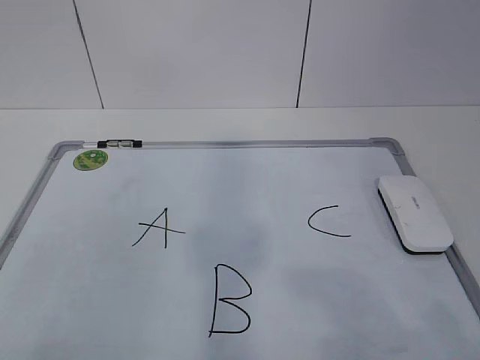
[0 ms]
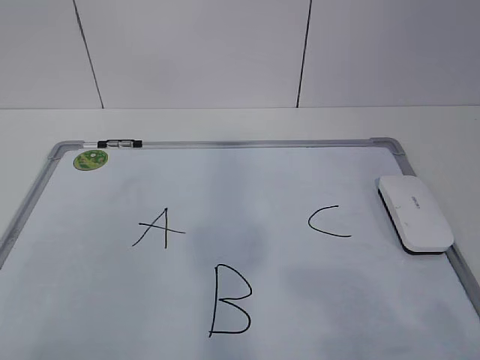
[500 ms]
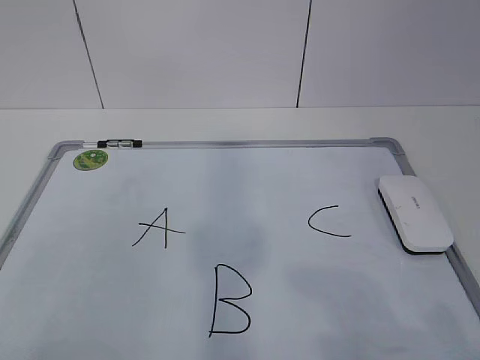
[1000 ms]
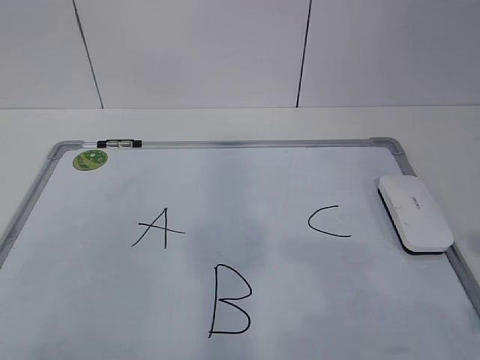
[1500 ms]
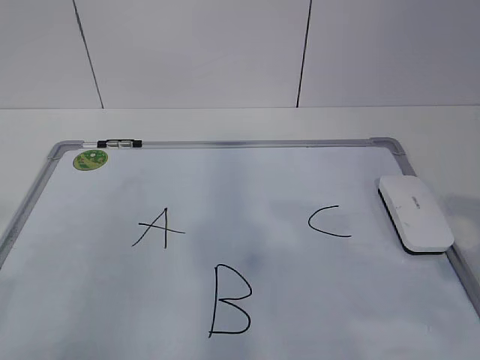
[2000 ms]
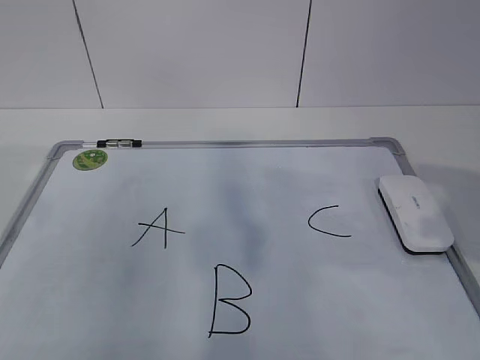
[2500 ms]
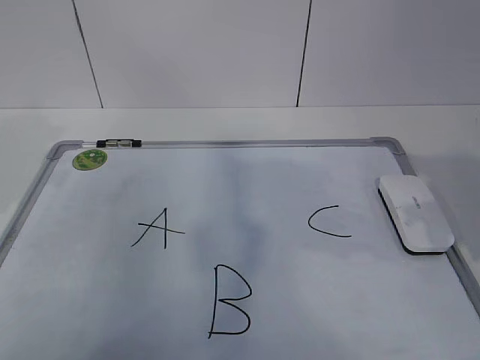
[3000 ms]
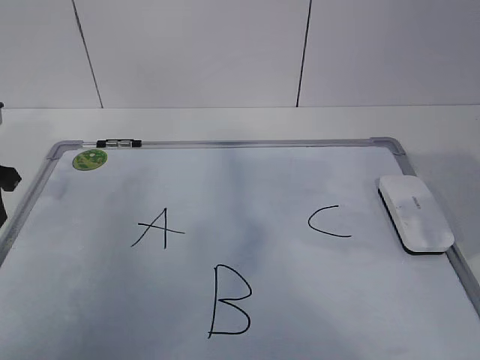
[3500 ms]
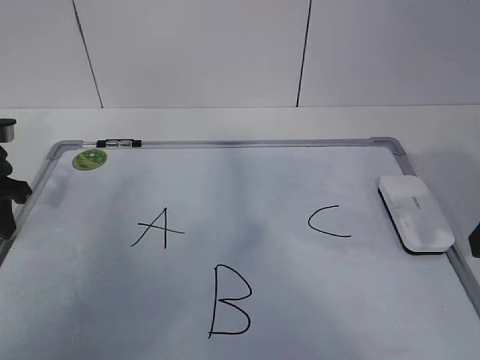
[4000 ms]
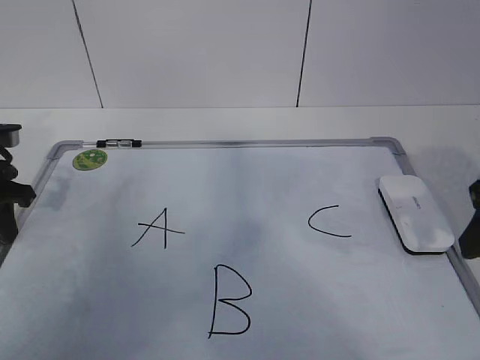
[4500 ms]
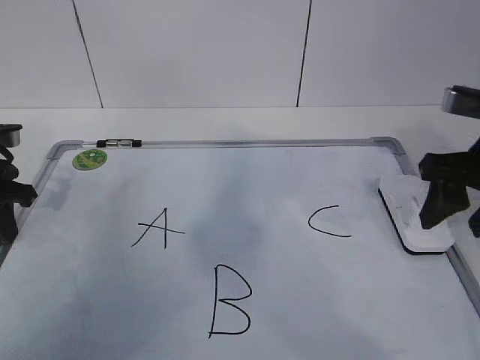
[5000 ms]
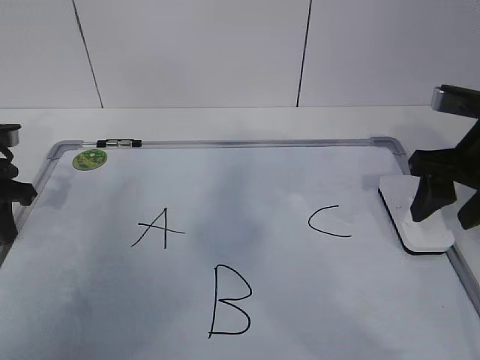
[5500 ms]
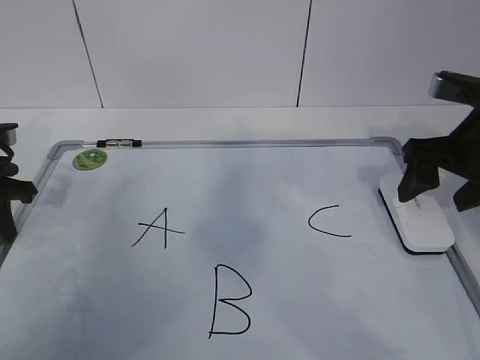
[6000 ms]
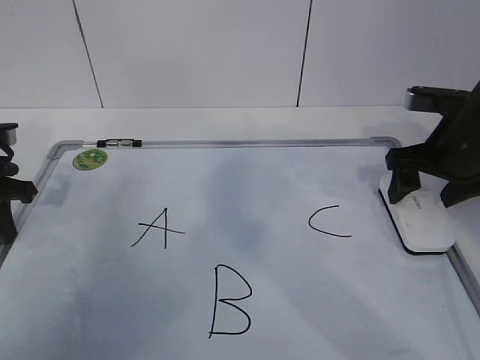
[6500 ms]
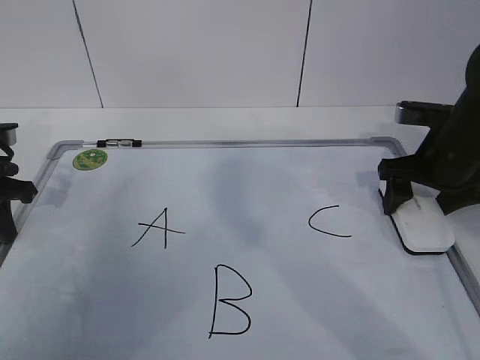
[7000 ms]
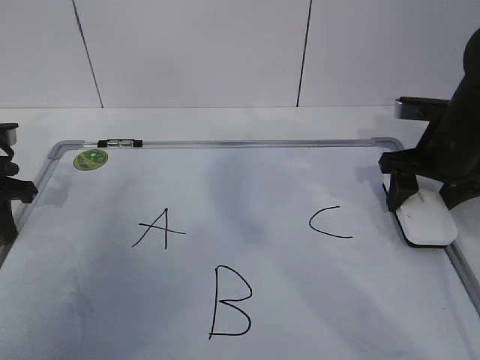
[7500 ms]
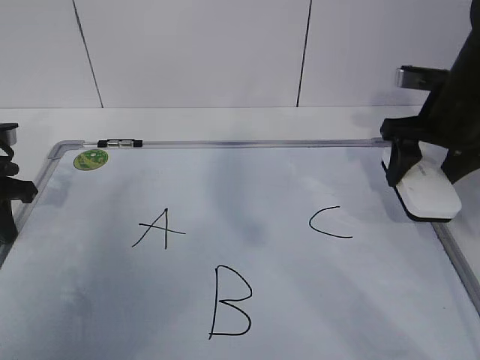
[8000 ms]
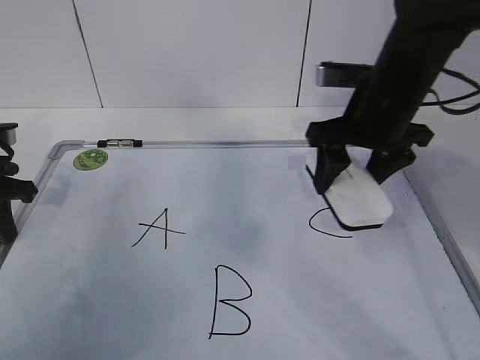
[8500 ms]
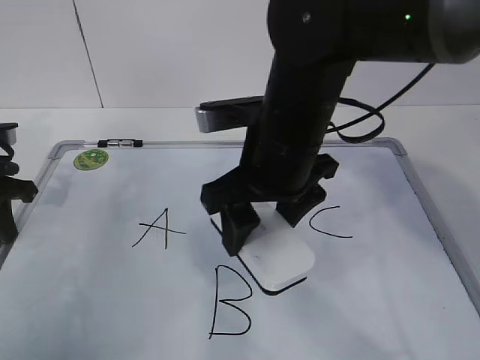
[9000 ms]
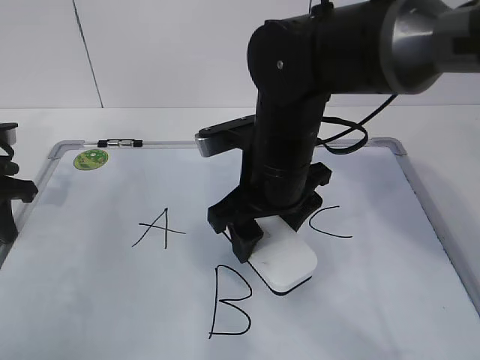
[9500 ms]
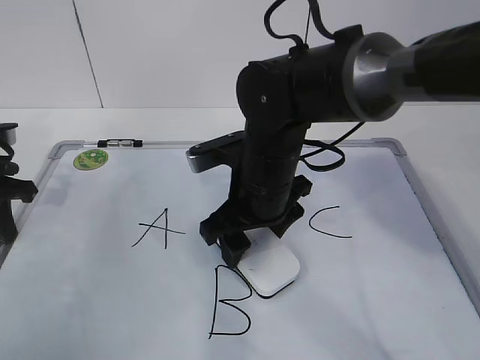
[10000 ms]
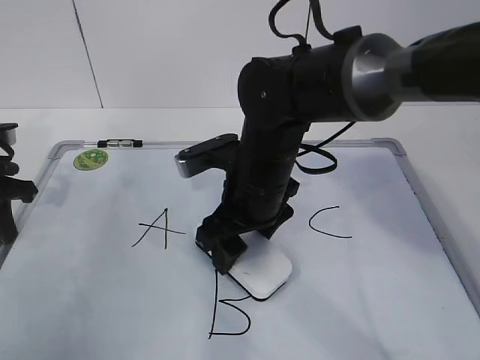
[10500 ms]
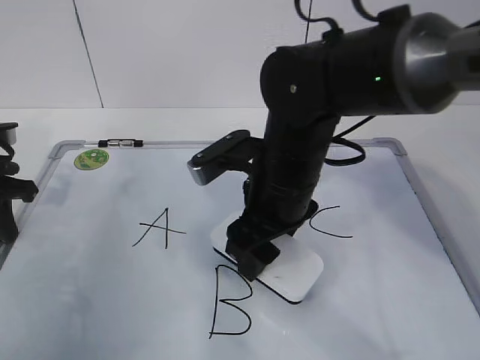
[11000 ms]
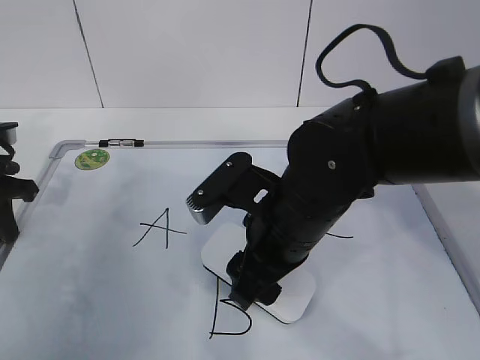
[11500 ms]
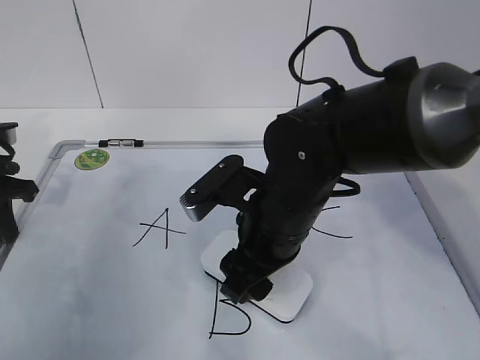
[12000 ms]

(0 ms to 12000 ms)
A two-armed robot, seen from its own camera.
Task of the whole recording: pick up the eraser on the blackboard and erase the letter "B".
Step, 0 ms - 3000 ms: Hold the drawing board steady with your left hand.
Step, 4000 ms - 6000 ms: Grab the eraser with your right hand.
2000 ms - 4000 ms: The right gripper moves forward, about 15 cm; the left gripper goes approximately 30 cm forward and downward.
4000 ms - 6000 ms: The left gripper closes up; the right gripper travels forward by about 10 cm, and opens up.
6000 ms - 8000 ms: The right gripper moves forward, approximately 5 cm, and closes its fingers.
8000 ms - 10000 ms: The right gripper moves to the left, some 20 cm.
10000 ms - 12000 ms: The right gripper heads backward, covering about 5 cm.

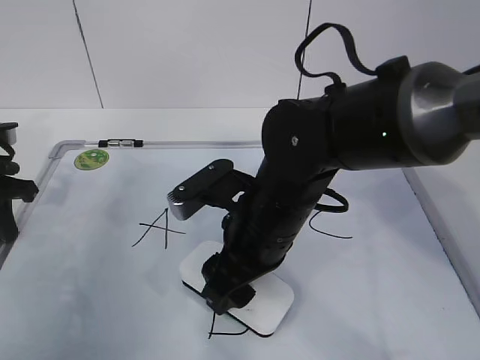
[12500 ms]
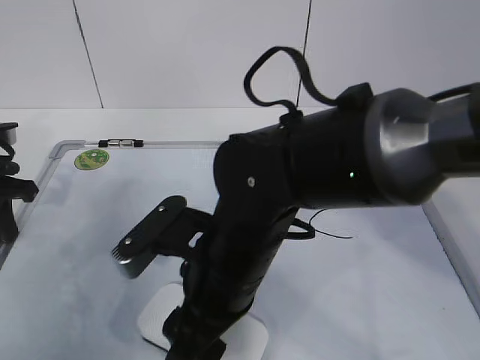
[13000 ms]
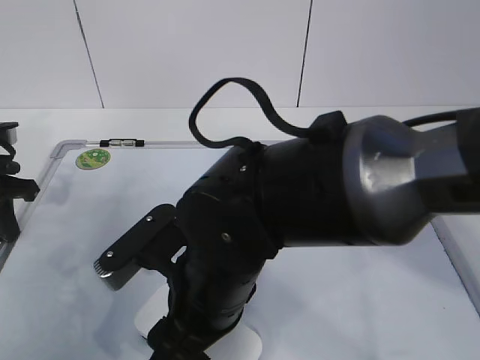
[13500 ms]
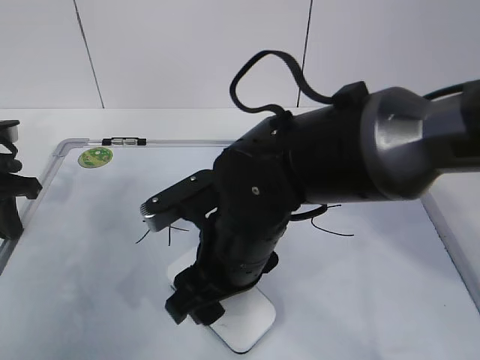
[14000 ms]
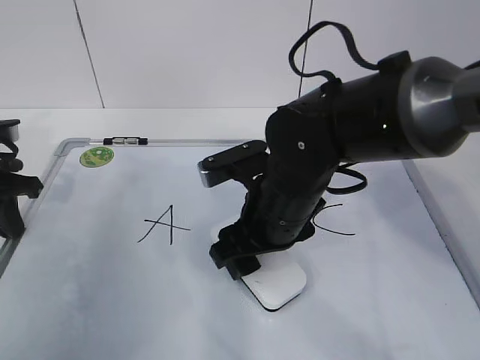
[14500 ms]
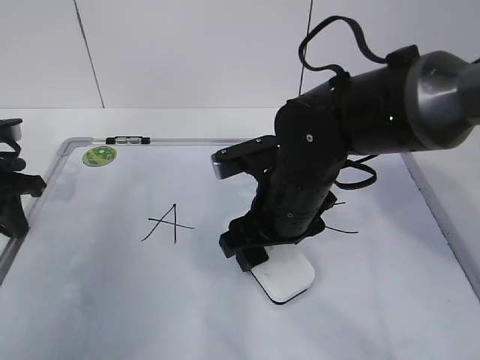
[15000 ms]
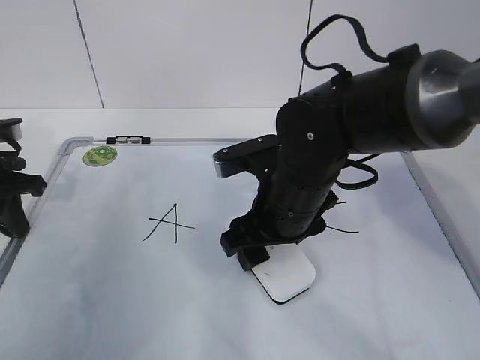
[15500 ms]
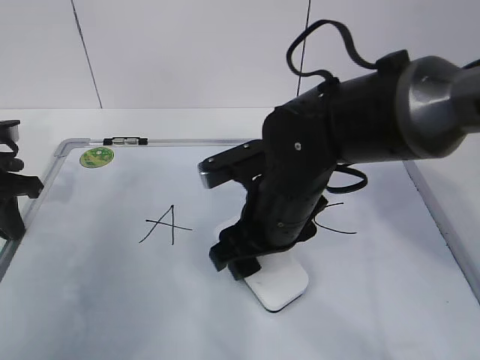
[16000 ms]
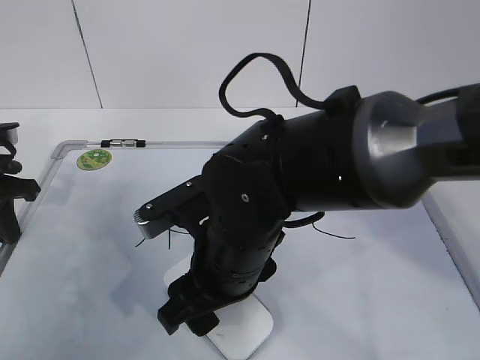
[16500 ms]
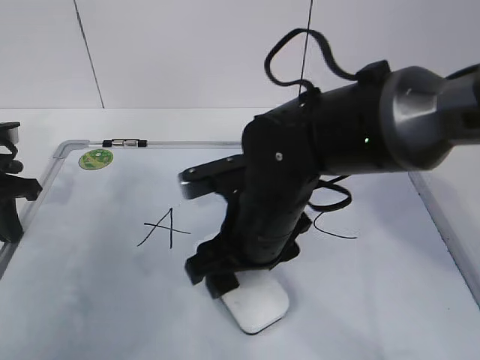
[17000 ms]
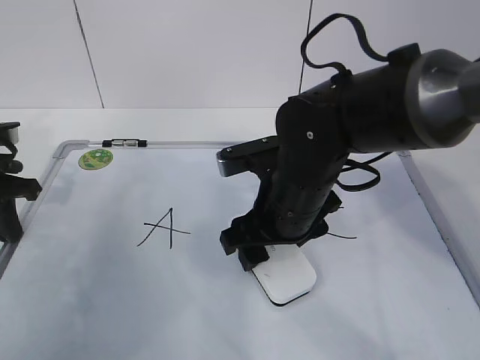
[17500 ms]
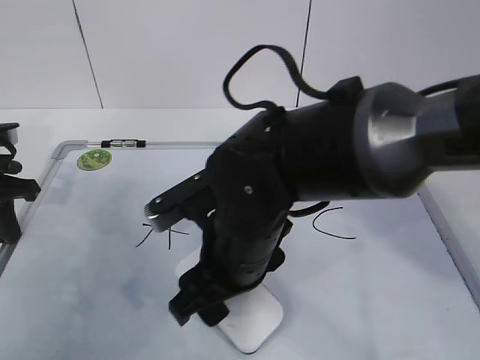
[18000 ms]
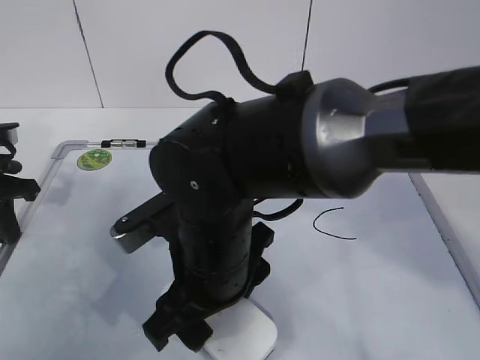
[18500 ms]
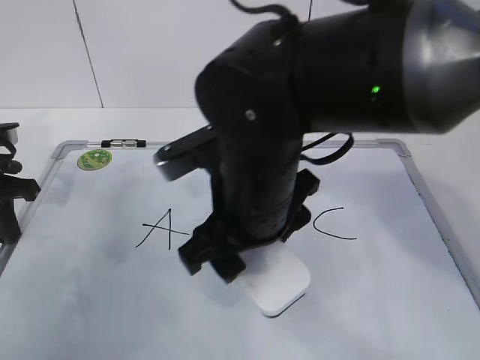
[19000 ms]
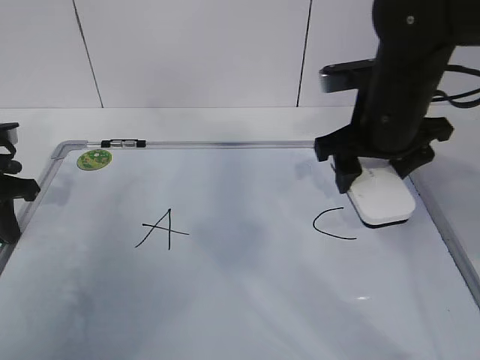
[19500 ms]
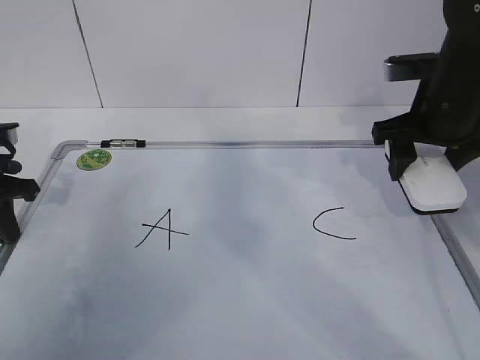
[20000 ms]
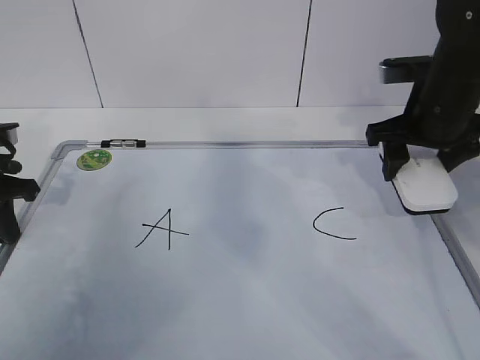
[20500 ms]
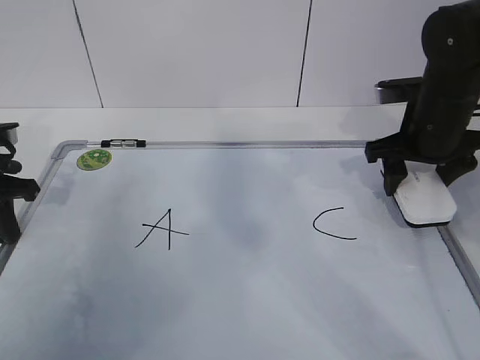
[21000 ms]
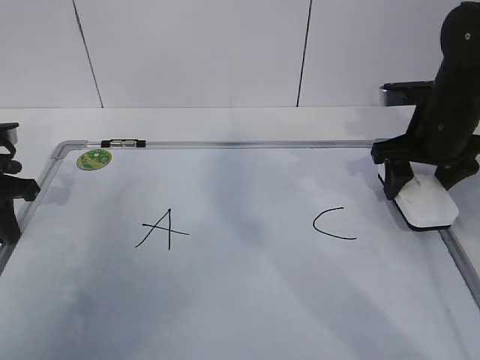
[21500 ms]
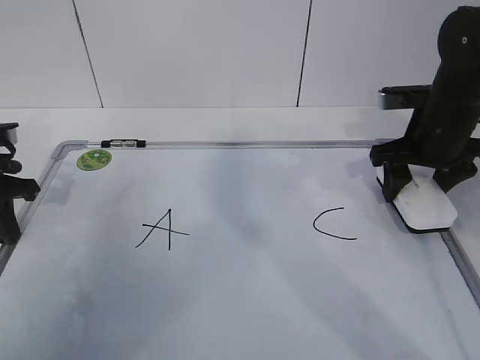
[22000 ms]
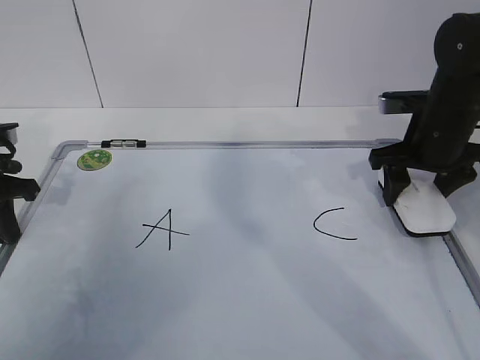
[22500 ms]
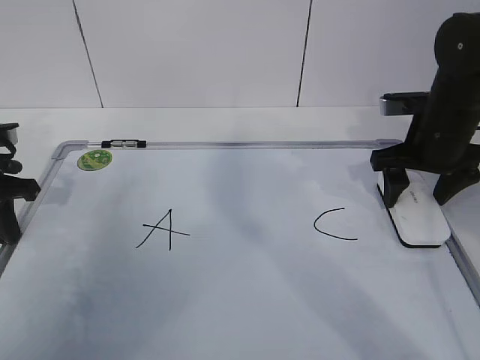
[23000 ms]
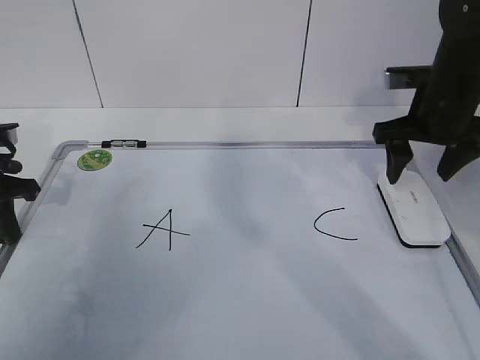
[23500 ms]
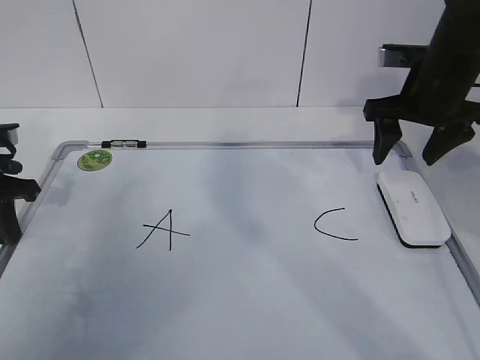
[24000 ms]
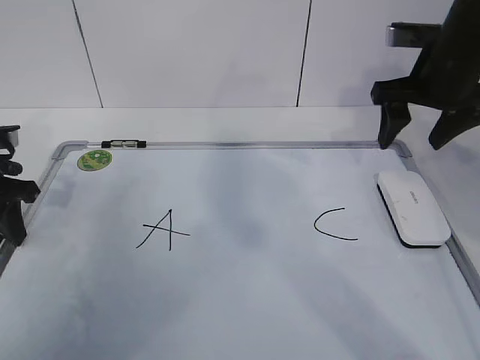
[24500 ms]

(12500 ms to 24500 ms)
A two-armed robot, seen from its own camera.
Task of the whole recording: pick up the eraser on the blackboard and erase the letter "B".
Step, 12500 ms - 15000 ms: Erase the letter B with your right hand.
Step, 15500 ms - 18500 ms: Put down the eraser with your right hand.
12500 ms - 14500 ms: The right gripper goes backward and returns, about 5 cm each way.
14500 ms - 16500 ms: The right gripper goes about 10 cm backward and to the left.
16500 ms - 18500 ms: The right gripper reaches approximately 5 cm to the right, then returns.
18500 ms - 20500 ms: The right gripper shifts approximately 30 cm to the right and forward.
20500 ms - 22500 ms: The right gripper moves approximately 5 cm.
22500 ms - 24500 ms: The left gripper opens. Meanwhile the right gripper shifts about 10 cm upward, and opens its fingers.

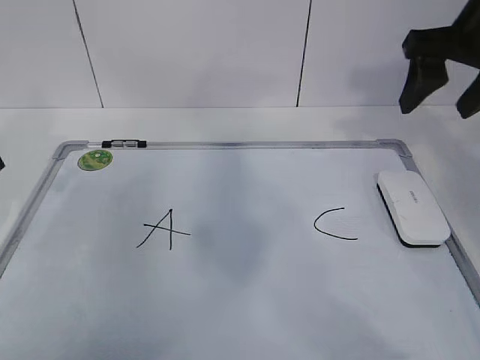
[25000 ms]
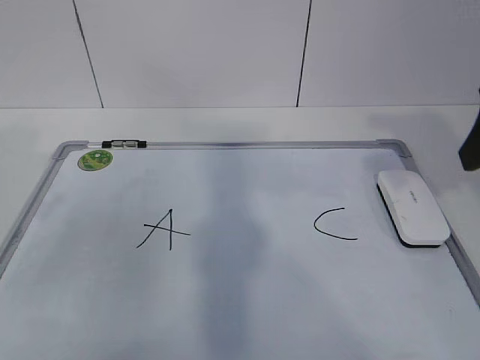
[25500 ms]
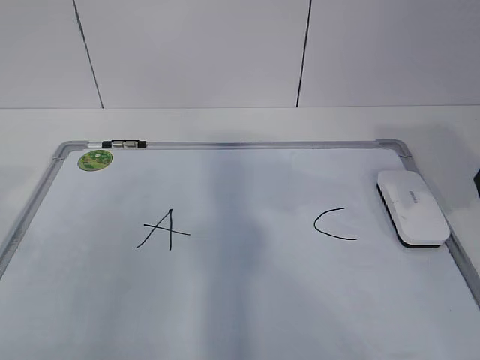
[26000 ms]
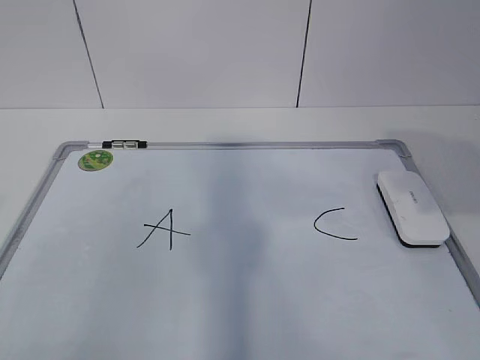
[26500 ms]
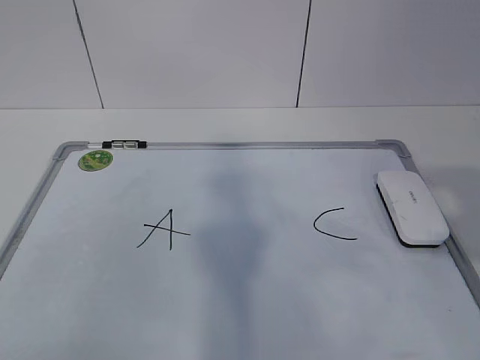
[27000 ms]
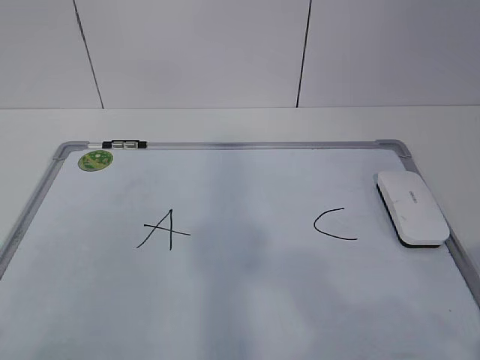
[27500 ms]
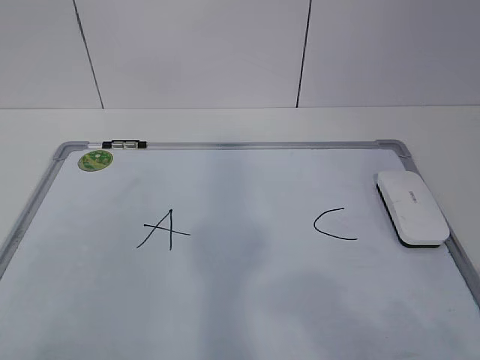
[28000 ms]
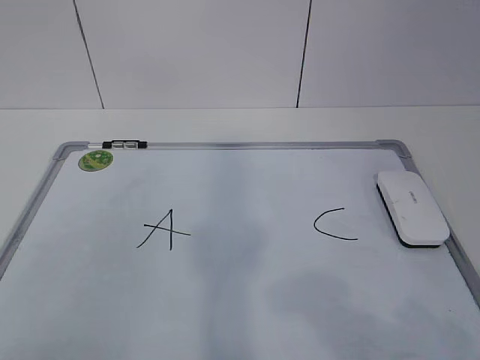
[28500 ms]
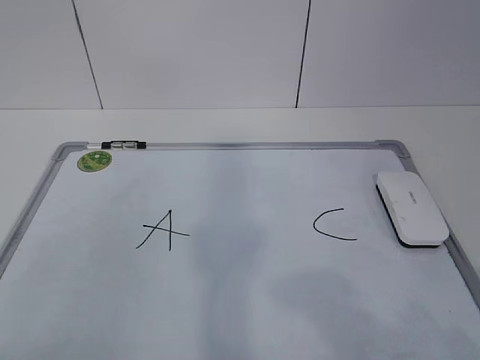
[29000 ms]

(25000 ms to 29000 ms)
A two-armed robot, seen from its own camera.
Task of the whole recording: pick up the eraser on the blackboard and erase the letter "B".
25000 ms - 27000 ms: Both grippers move backward, some 30 cm. The right gripper closes.
27000 ms - 29000 ms: The right gripper moves downward and backward, about 10 cm. Meanwhile the left gripper goes roughly 5 cm downward.
